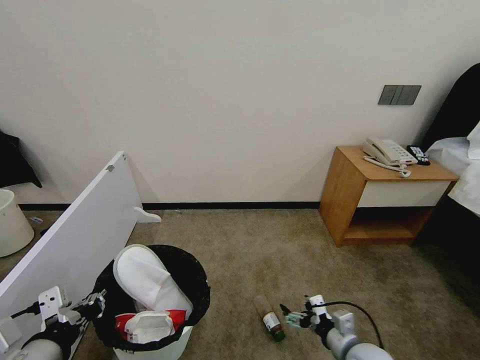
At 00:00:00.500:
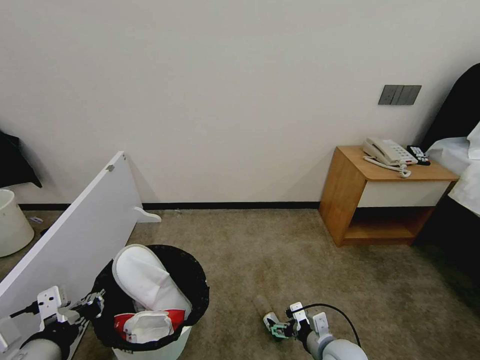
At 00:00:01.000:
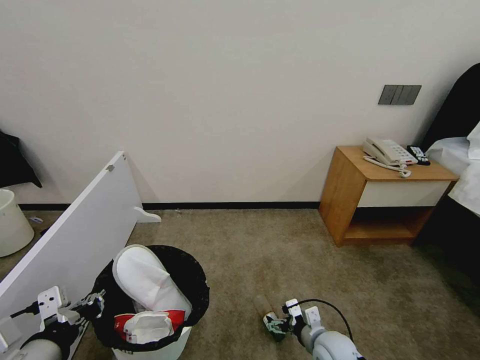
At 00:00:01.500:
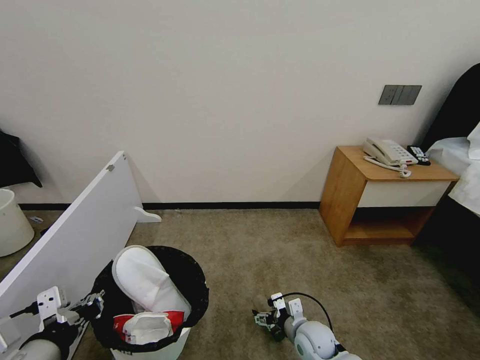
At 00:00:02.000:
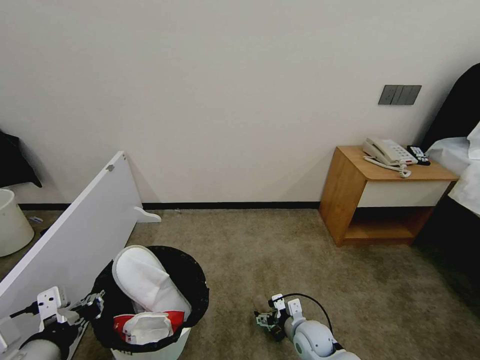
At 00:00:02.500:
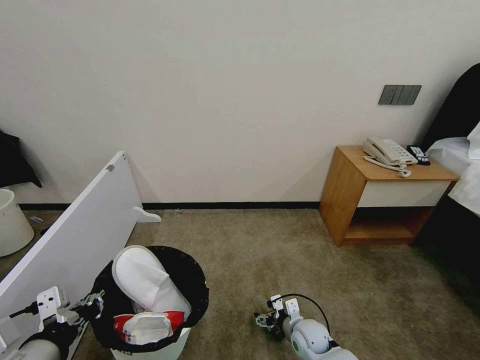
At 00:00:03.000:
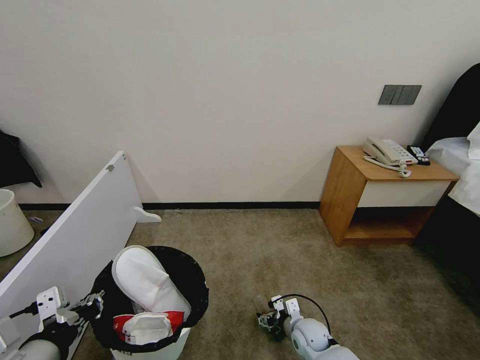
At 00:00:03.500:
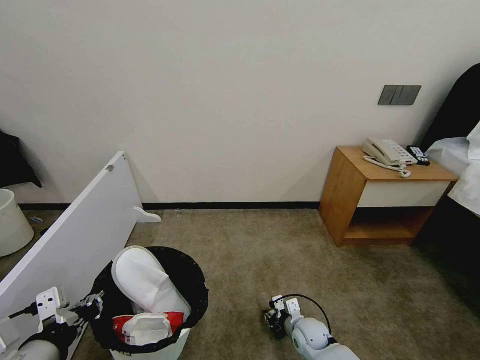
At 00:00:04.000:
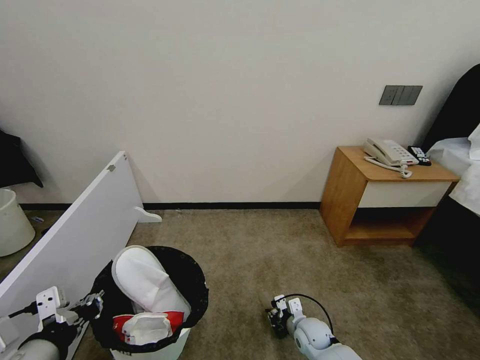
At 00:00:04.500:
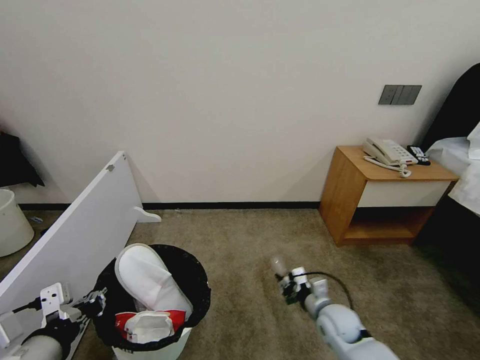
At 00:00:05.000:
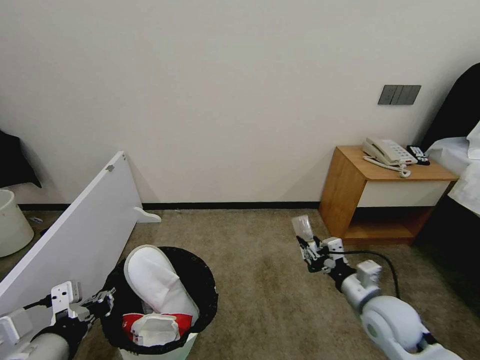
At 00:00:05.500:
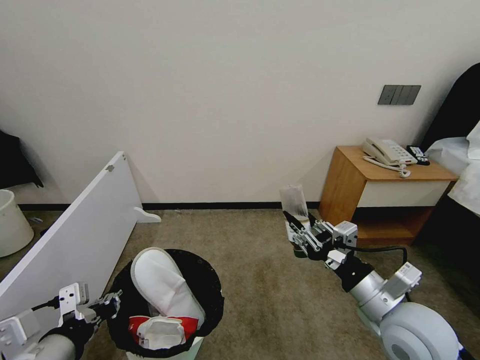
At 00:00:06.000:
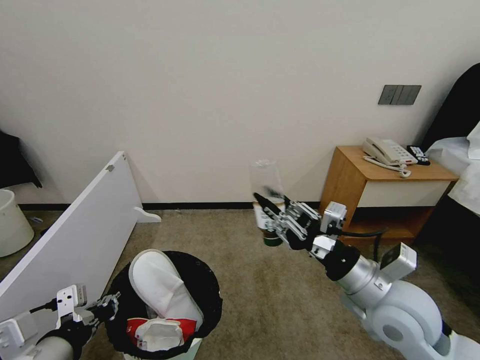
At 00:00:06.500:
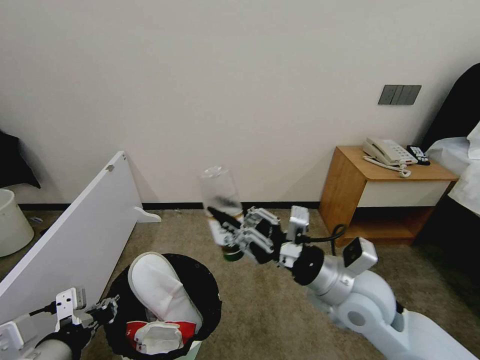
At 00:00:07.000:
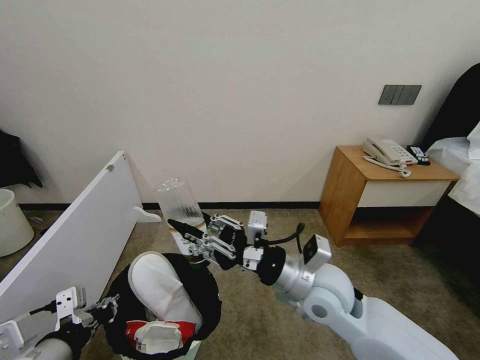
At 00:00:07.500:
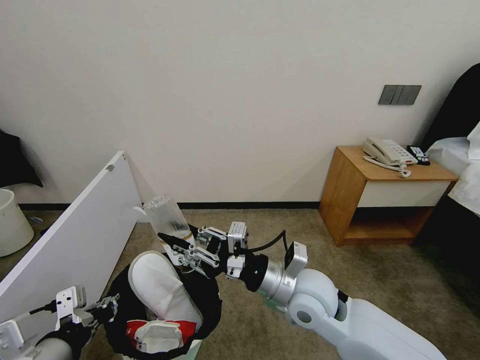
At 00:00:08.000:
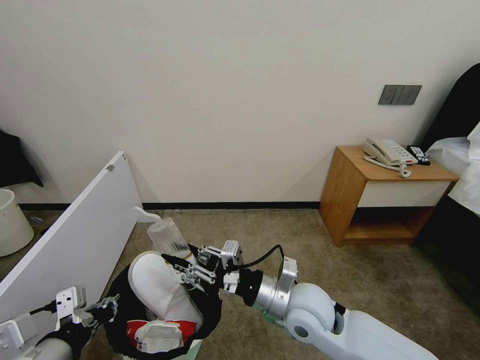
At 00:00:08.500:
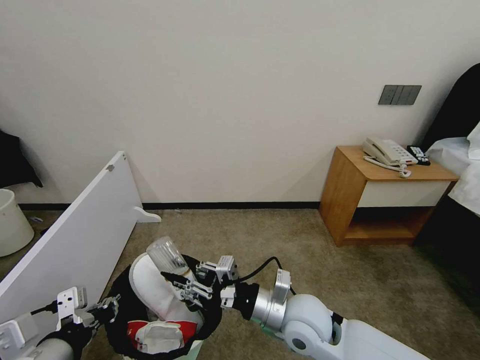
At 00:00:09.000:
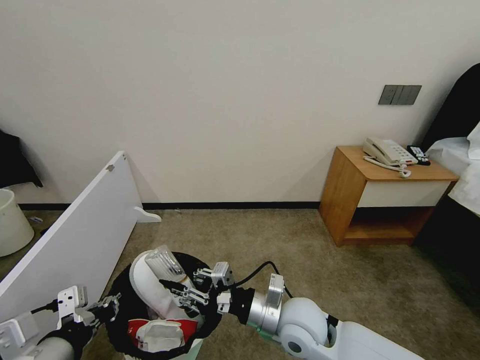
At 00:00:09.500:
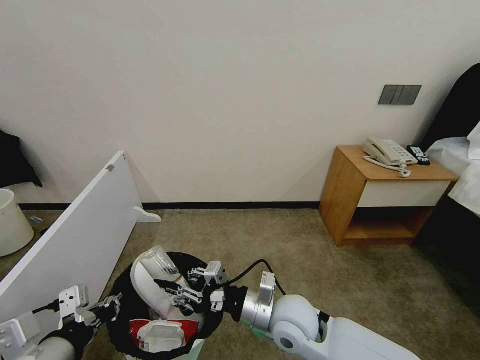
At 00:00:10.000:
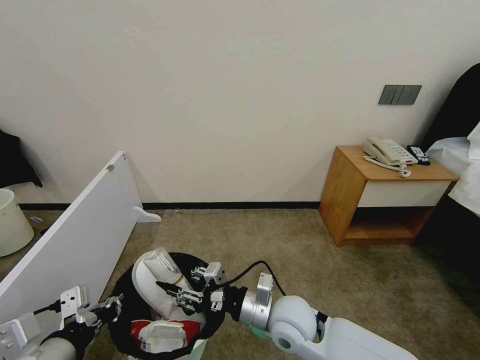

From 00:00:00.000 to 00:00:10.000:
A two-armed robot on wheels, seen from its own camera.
Task of the whole recording: Pick up the trash bin, then pick up the garbage from the floor and place it into the trash bin.
From 00:00:00.000 to 00:00:02.000: The right gripper travels to the left, forward and downward by some 15 cm.
From 00:00:02.000 to 00:00:04.000: The right gripper closes its fingers.
From 00:00:04.000 to 00:00:06.000: The right gripper shifts about 35 cm upward.
From 00:00:06.000 to 00:00:08.000: The right gripper moves to the left and downward, approximately 15 cm.
From 00:00:08.000 to 00:00:10.000: The right gripper ends up about 5 cm from where it was.

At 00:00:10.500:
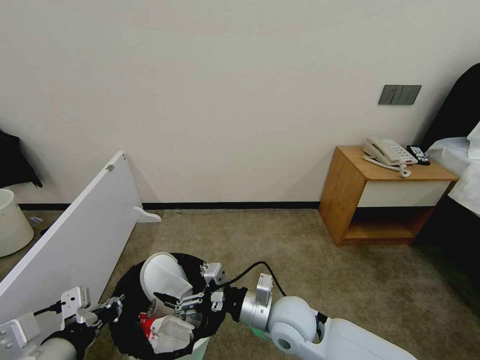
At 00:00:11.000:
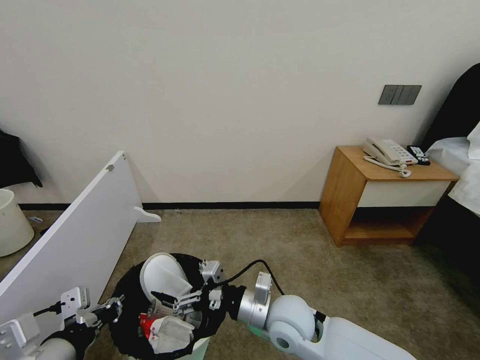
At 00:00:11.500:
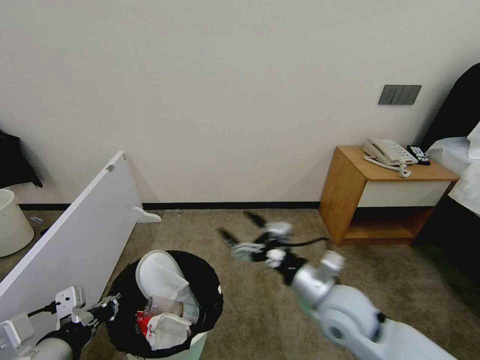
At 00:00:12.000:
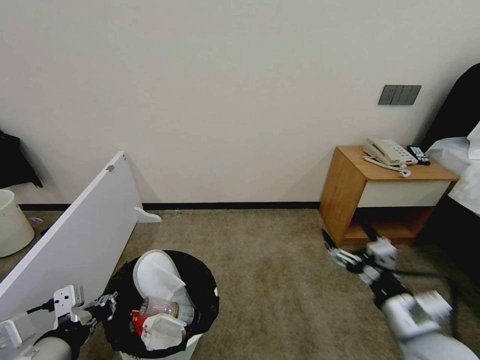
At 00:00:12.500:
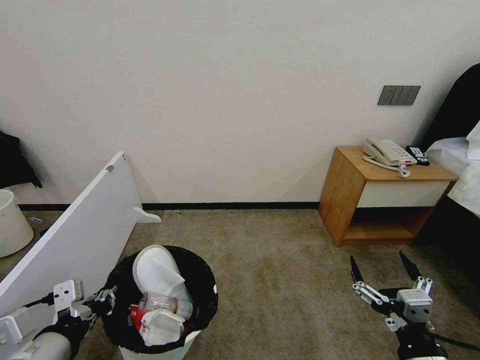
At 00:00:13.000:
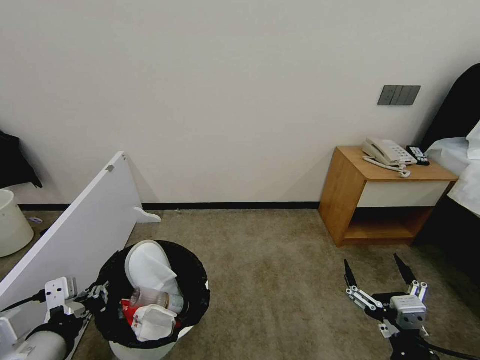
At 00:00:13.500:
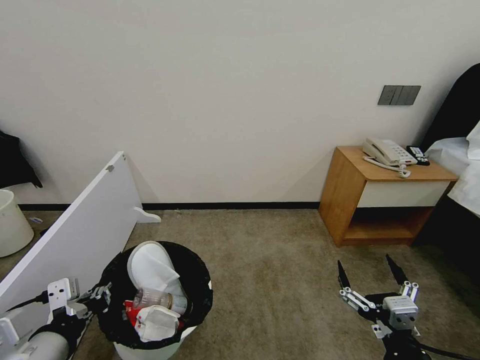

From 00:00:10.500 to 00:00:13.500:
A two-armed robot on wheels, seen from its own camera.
Task of the whole recording: Pick up the trash bin, then pick up the garbage from the floor and place it into the trash bin.
From 00:00:10.500 to 00:00:12.000: The right gripper travels to the right by approximately 20 cm.
From 00:00:12.000 to 00:00:13.500: The right gripper travels backward by roughly 10 cm.

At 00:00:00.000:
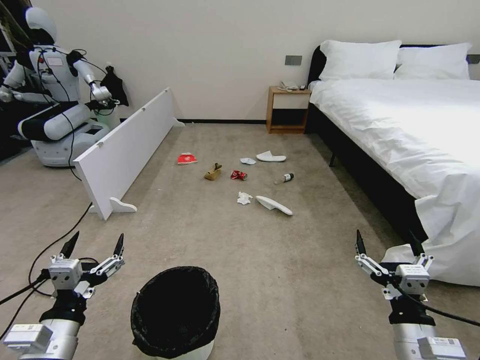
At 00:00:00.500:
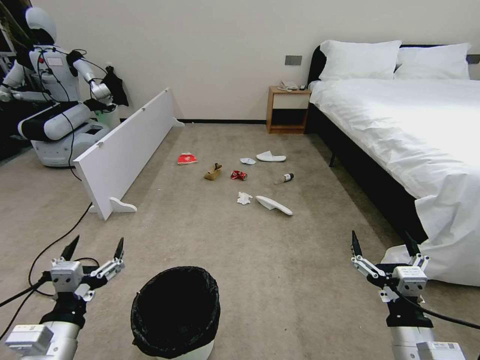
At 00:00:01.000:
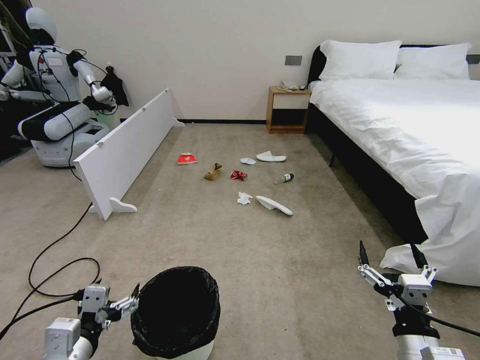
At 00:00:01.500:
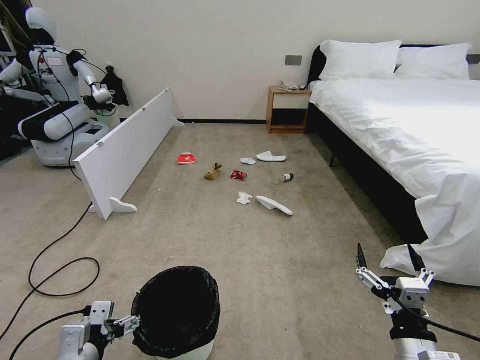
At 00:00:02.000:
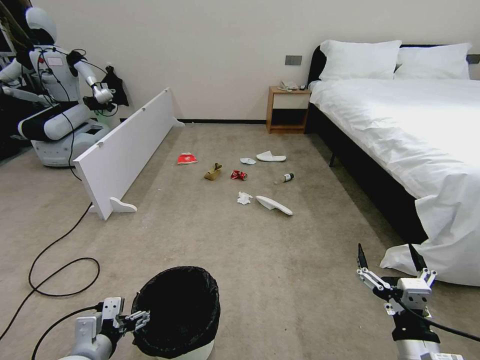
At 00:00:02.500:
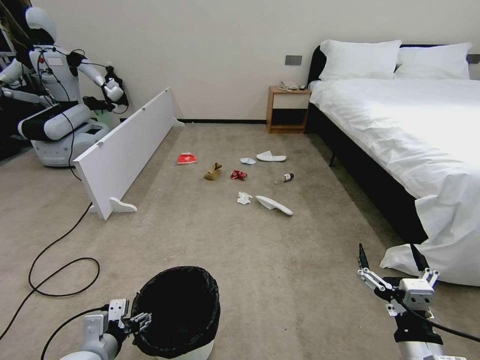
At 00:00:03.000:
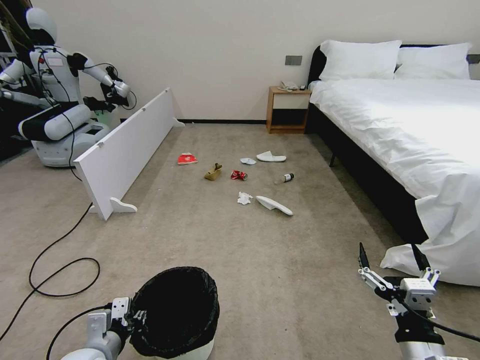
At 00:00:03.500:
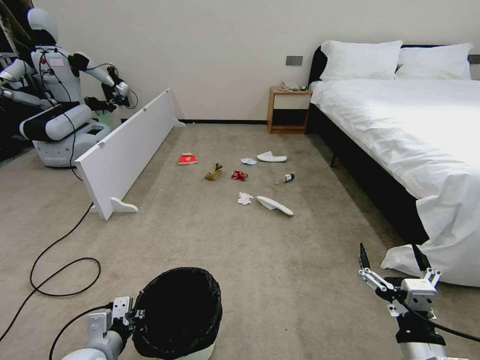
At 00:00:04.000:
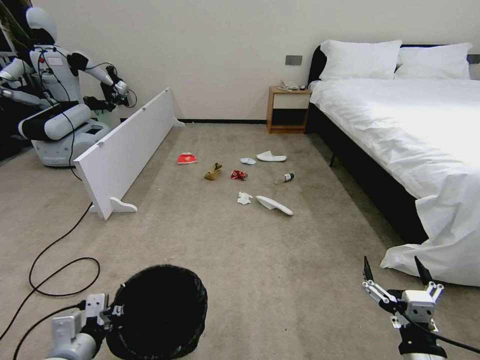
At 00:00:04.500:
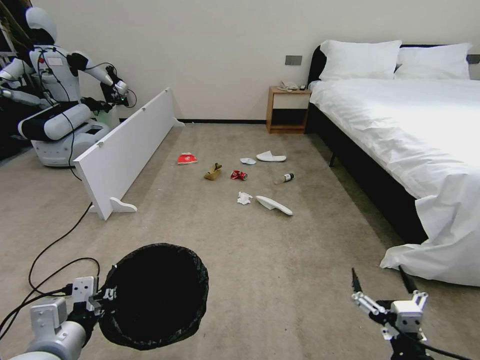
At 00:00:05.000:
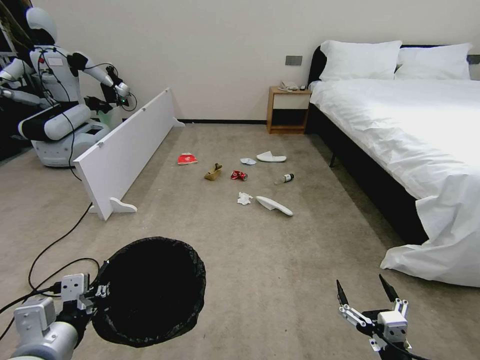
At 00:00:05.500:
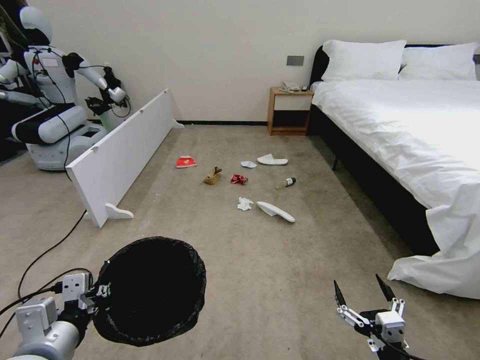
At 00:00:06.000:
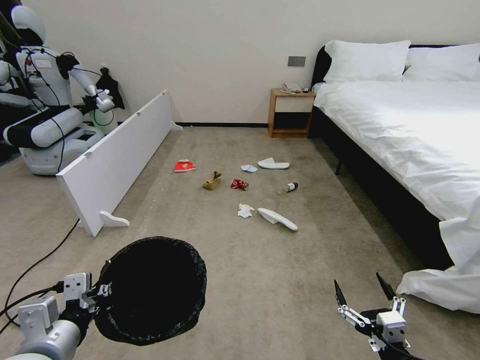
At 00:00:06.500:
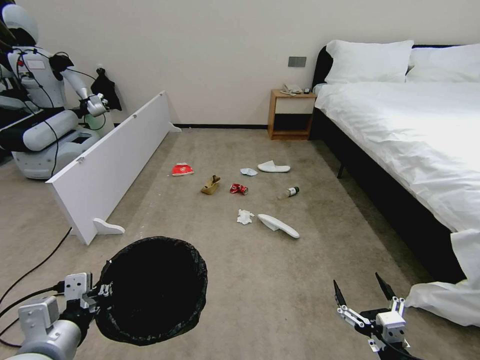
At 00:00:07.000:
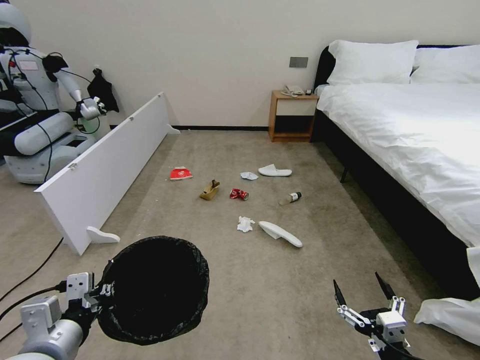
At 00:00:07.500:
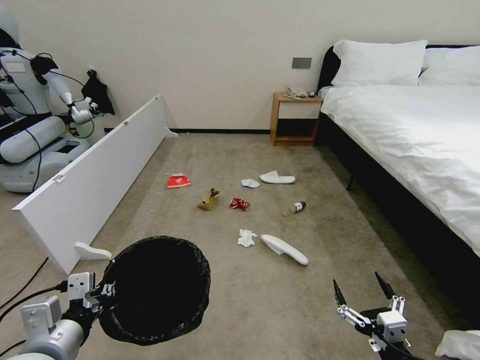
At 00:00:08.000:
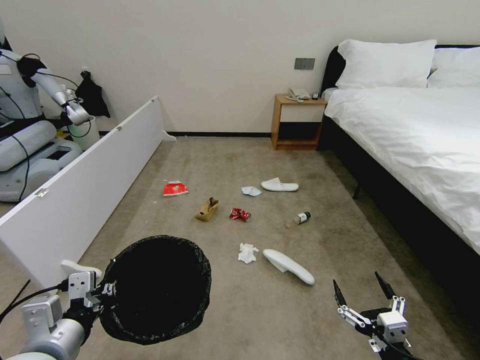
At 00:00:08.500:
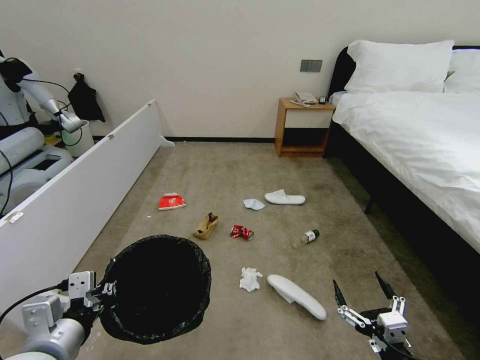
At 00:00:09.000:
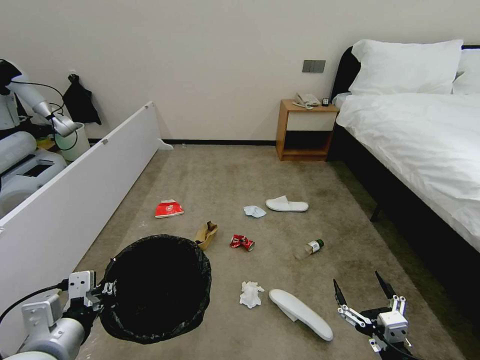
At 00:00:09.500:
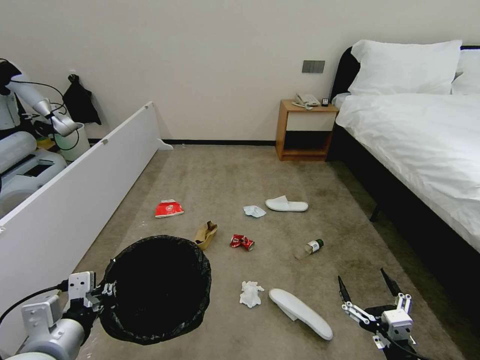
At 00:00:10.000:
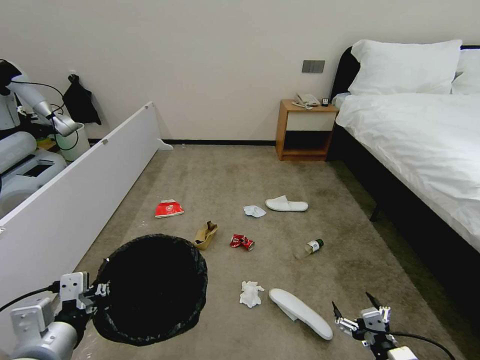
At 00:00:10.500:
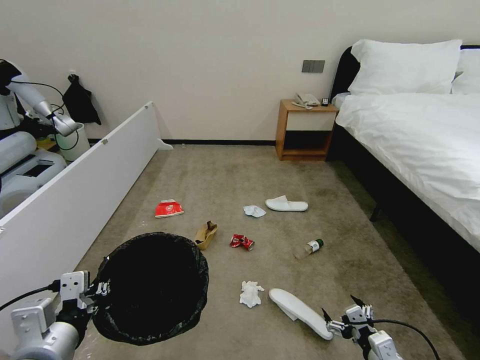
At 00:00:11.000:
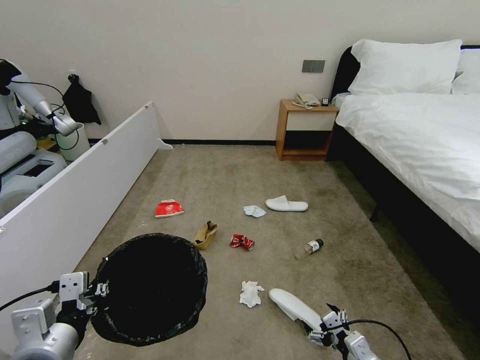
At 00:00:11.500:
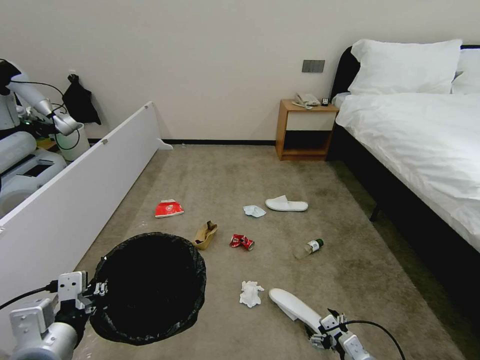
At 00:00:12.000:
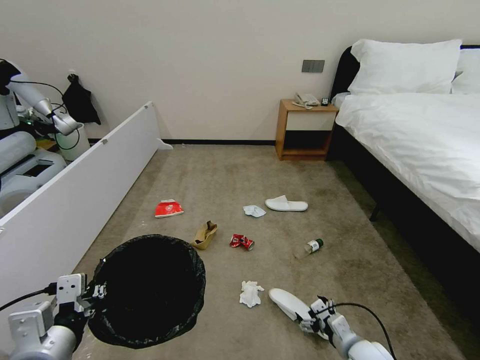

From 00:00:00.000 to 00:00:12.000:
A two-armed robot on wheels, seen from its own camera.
Task of the whole recording: Pick up the trash bin, then pick up the garbage from the floor and place it into the trash bin.
From 00:00:02.000 to 00:00:04.000: The left gripper closes up.
From 00:00:04.000 to 00:00:06.000: The left gripper moves upward, approximately 10 cm.
From 00:00:08.000 to 00:00:10.000: The right gripper shifts by some 5 cm.
From 00:00:10.000 to 00:00:12.000: The right gripper travels forward and downward by about 15 cm.
